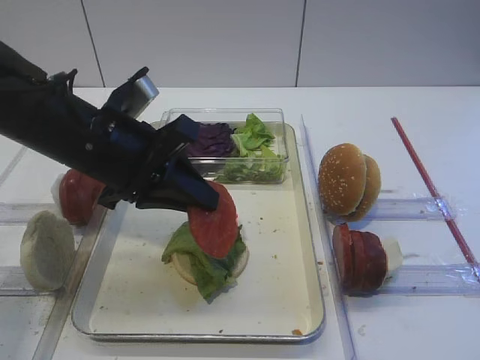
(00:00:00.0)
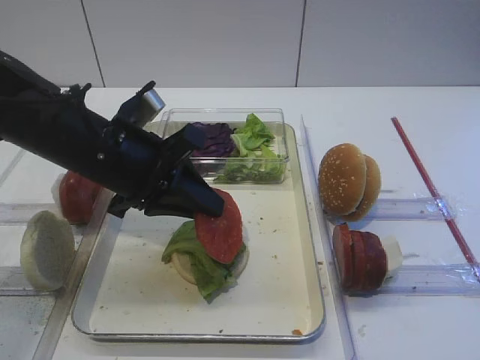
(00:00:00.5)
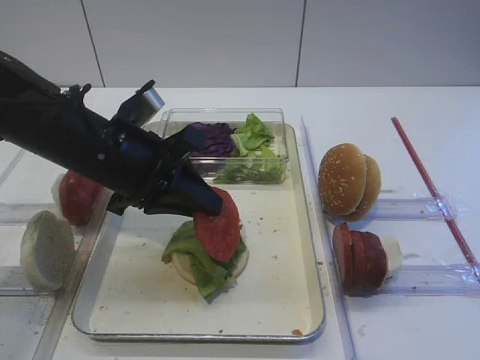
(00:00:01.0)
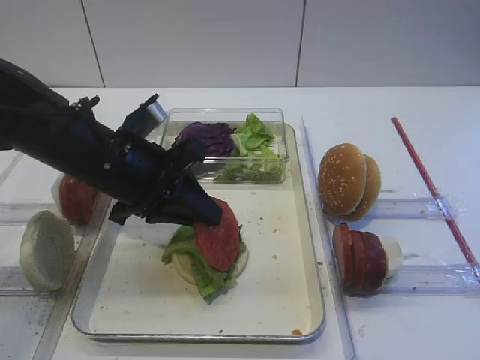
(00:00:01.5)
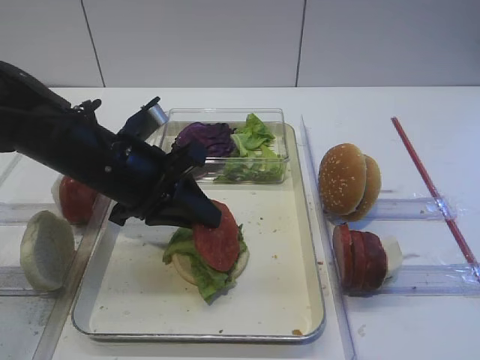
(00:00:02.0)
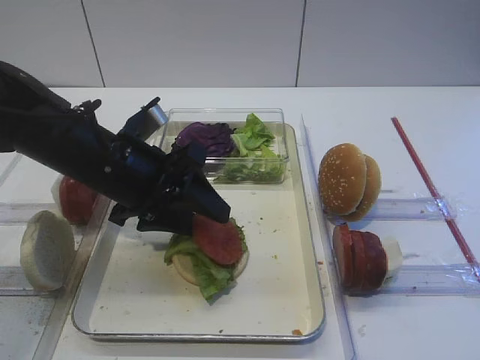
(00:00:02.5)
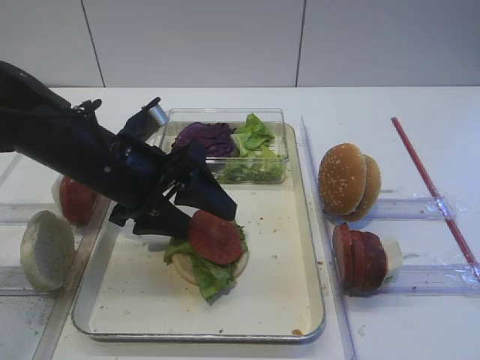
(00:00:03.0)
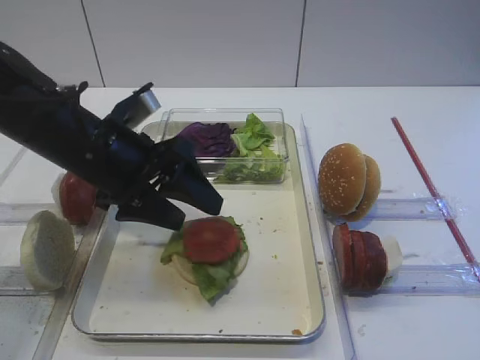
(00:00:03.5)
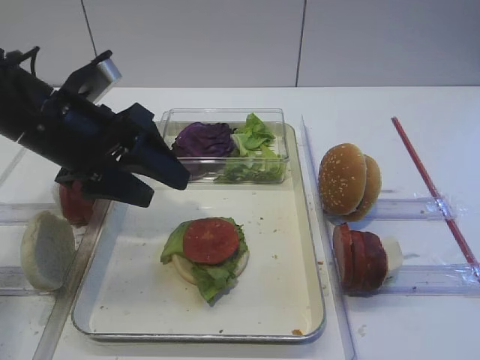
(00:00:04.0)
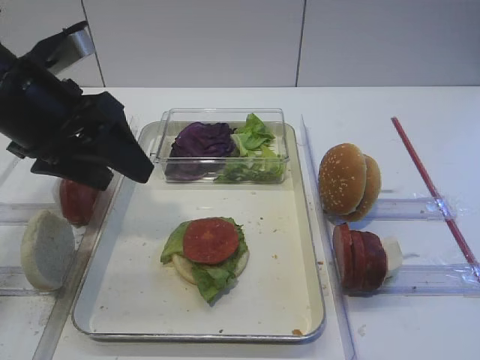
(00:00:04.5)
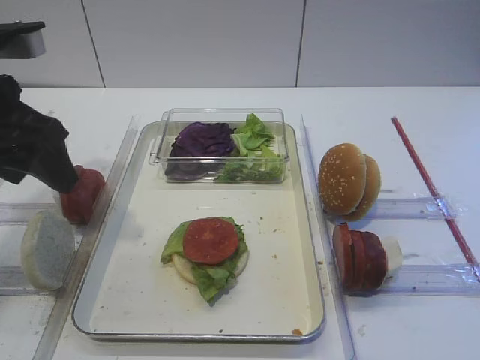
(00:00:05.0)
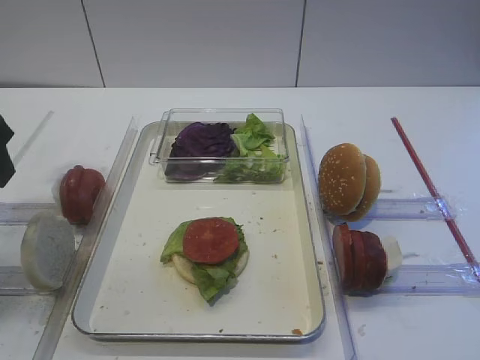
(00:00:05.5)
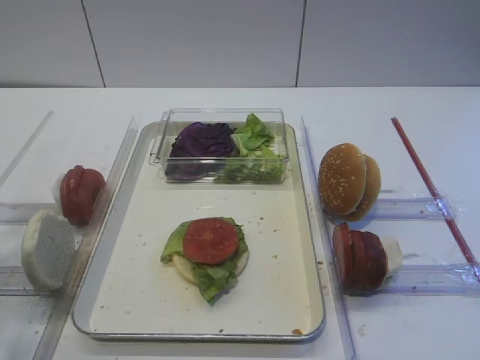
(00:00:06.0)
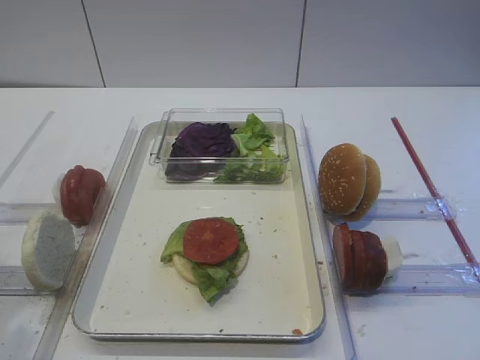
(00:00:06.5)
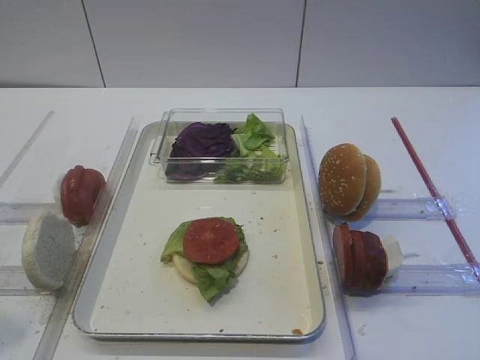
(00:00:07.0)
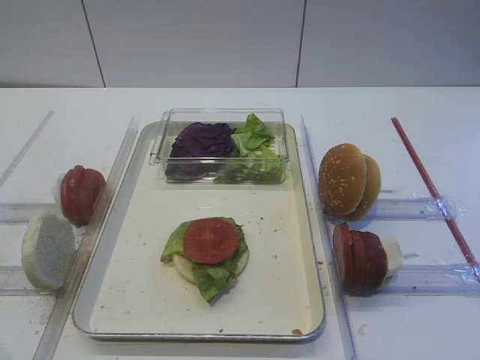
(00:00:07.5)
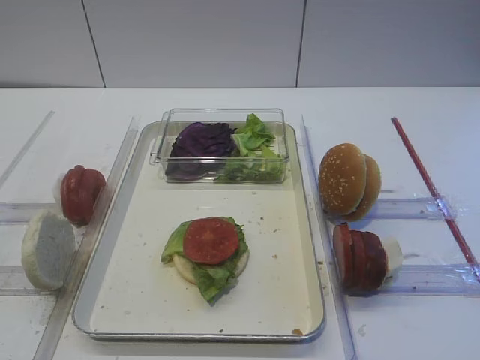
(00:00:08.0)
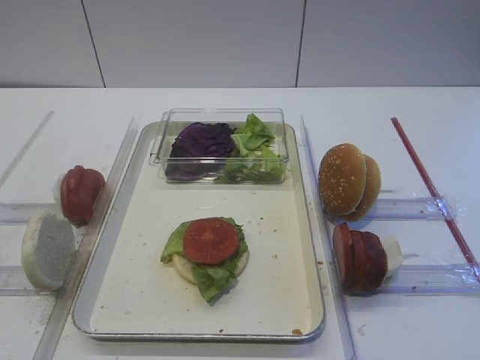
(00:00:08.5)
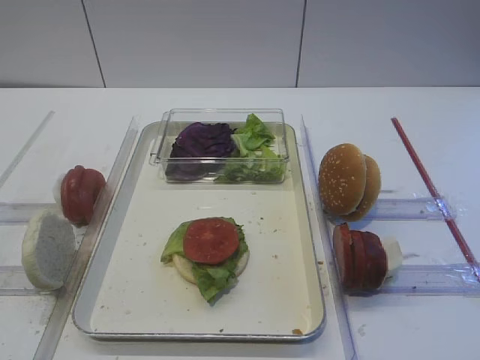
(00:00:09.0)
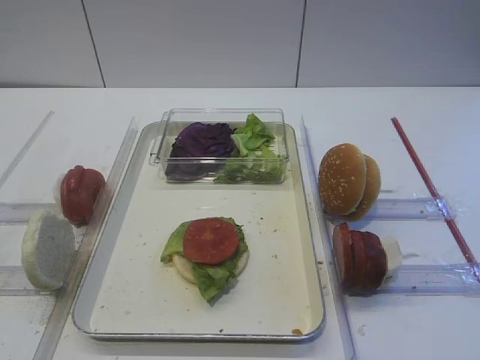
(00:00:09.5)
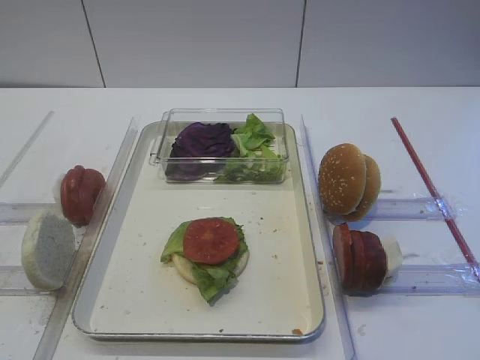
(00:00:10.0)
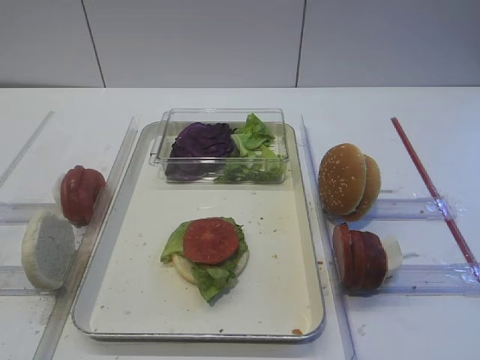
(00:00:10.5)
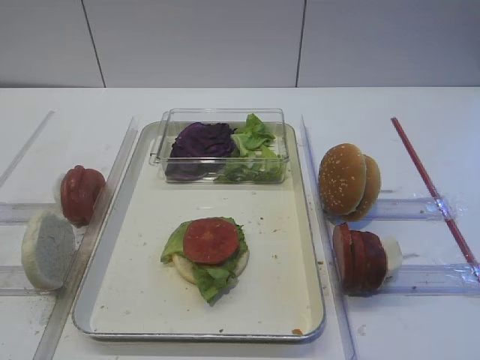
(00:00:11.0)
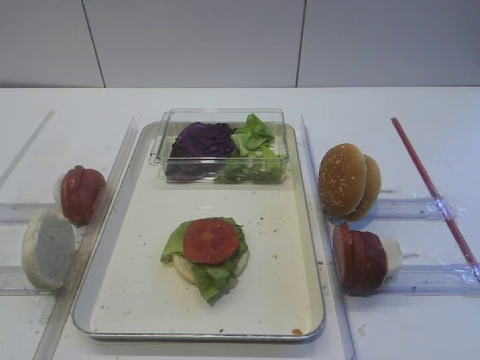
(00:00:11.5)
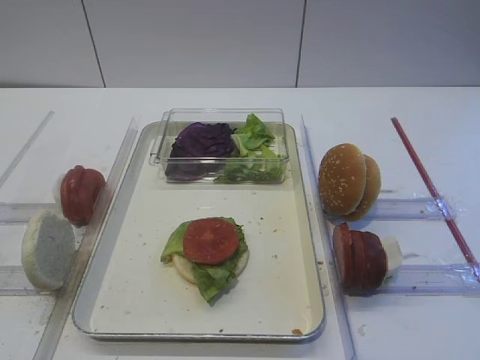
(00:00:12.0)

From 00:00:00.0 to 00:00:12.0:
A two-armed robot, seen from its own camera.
Step, from 00:00:00.0 to 00:00:03.5: Place the tomato slice on the lettuce leaf with the left gripper.
From 00:00:00.0 to 00:00:02.0: There are only small adjustments of the grippers.
From 00:00:02.0 to 00:00:04.0: The left gripper ends up some 5 cm from where it was, and opens its fingers.
From 00:00:04.0 to 00:00:06.0: The left gripper heads backward, to the left and upward, covering approximately 15 cm.
From 00:00:06.0 to 00:00:08.0: The left gripper shifts roughly 15 cm backward.
From 00:00:08.0 to 00:00:12.0: Both grippers stay put.
